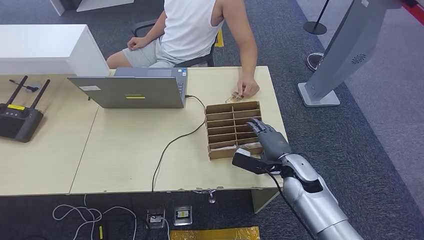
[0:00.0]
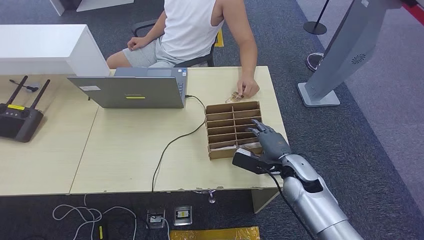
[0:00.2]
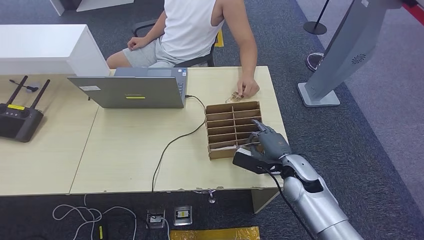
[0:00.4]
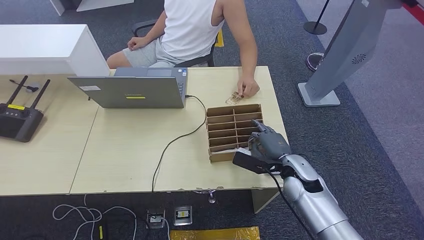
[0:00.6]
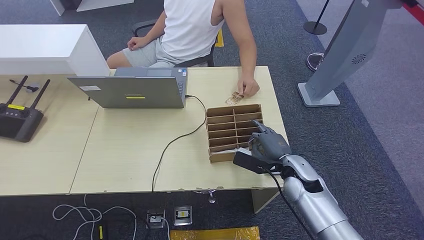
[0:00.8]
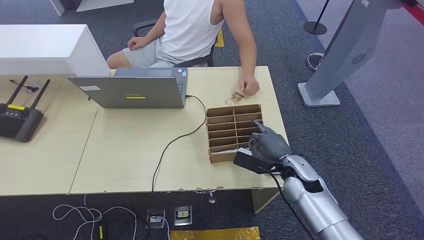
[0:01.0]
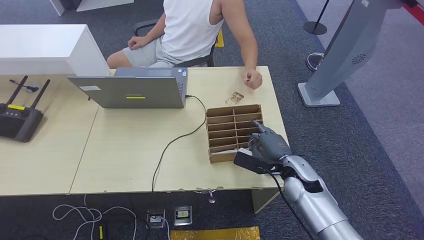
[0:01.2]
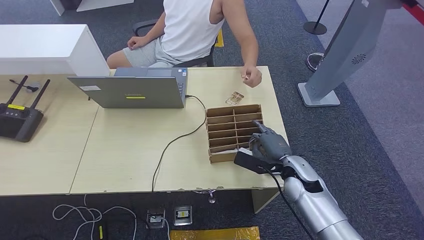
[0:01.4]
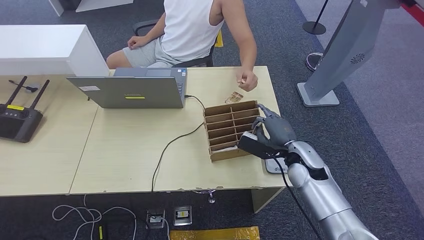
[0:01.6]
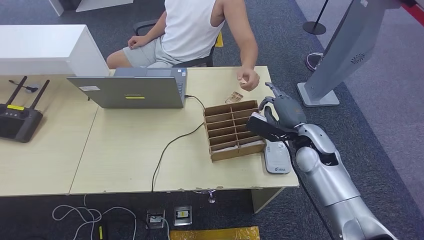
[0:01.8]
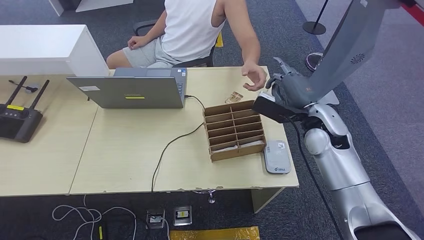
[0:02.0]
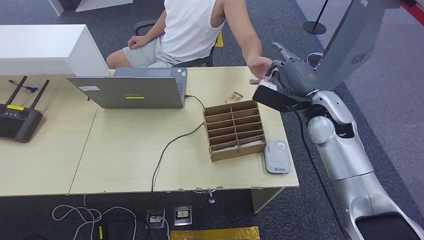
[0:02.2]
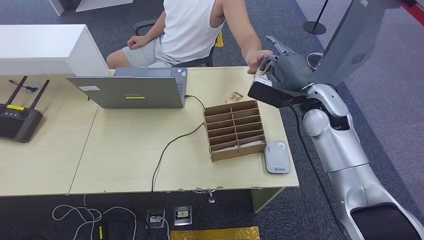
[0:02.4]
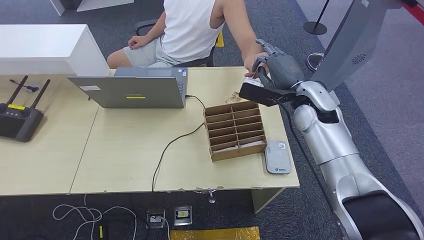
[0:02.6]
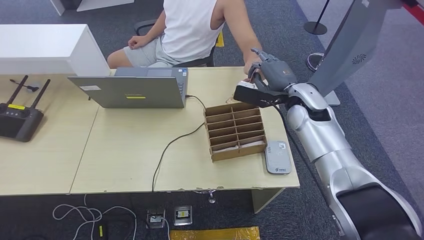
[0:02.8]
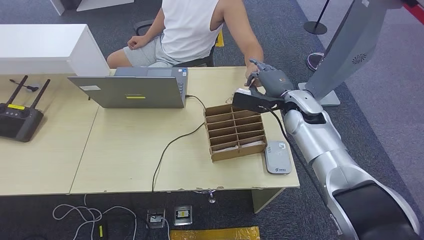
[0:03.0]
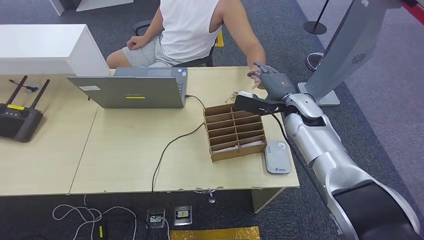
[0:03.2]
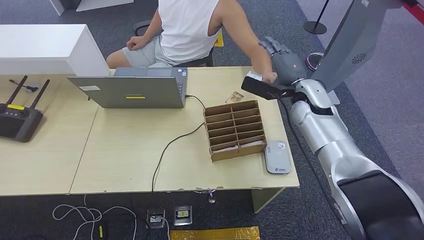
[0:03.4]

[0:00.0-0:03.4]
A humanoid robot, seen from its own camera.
Step, 0:02.0 to 0:03.4: Hand the room key to the person.
0:00.0 to 0:01.6: The hands stay close to where they were, moving slightly.
0:01.6 to 0:03.4: The right hand is displaced upward and forward by about 15 cm.
